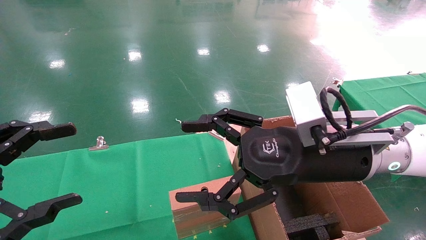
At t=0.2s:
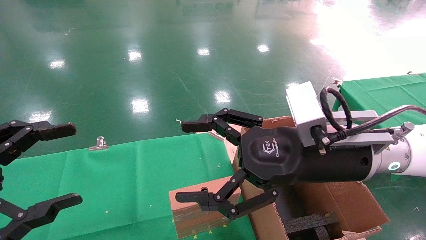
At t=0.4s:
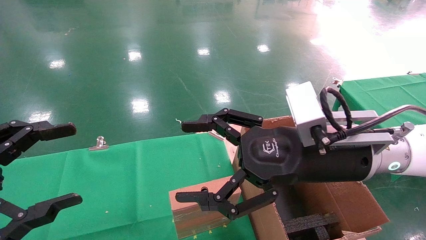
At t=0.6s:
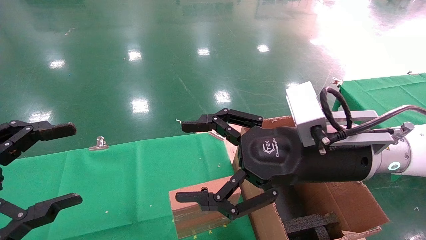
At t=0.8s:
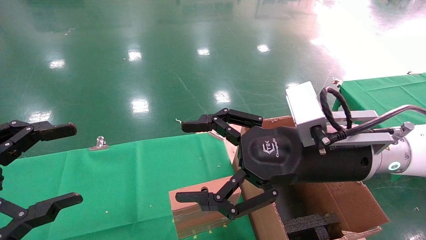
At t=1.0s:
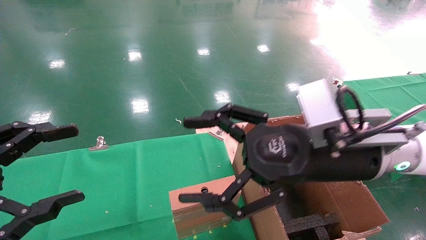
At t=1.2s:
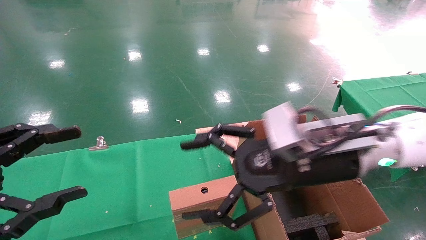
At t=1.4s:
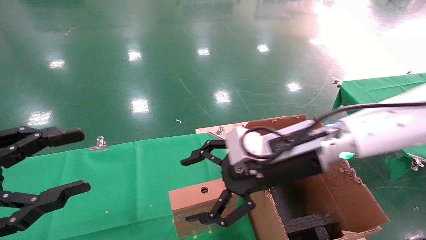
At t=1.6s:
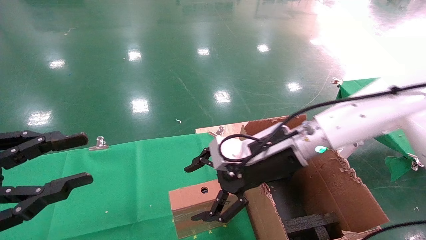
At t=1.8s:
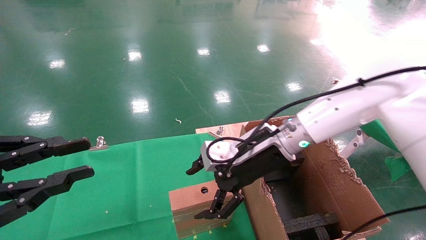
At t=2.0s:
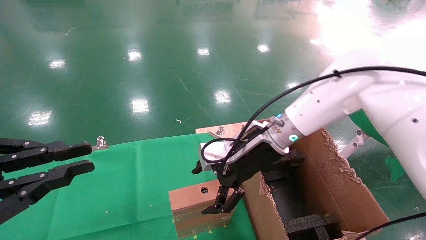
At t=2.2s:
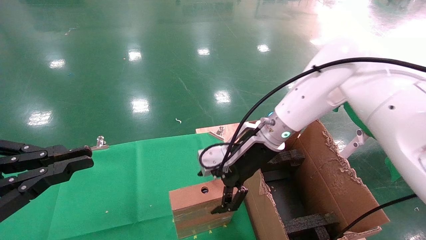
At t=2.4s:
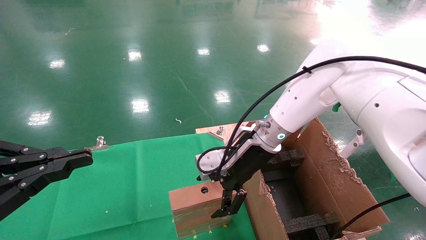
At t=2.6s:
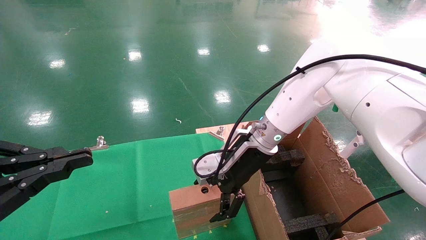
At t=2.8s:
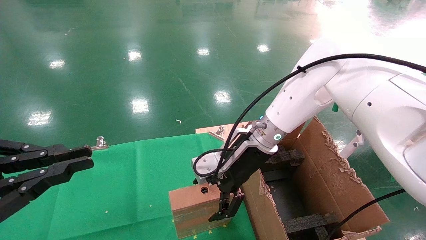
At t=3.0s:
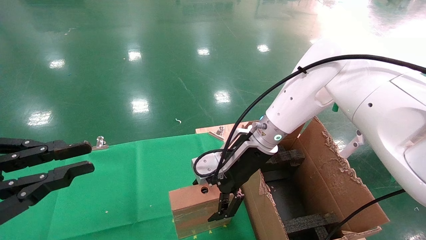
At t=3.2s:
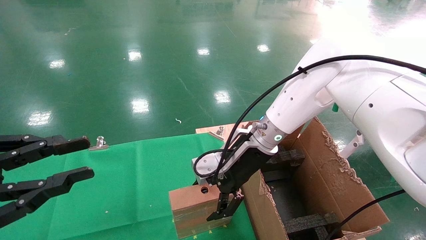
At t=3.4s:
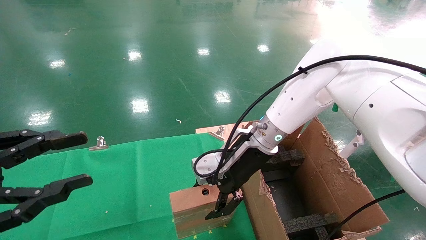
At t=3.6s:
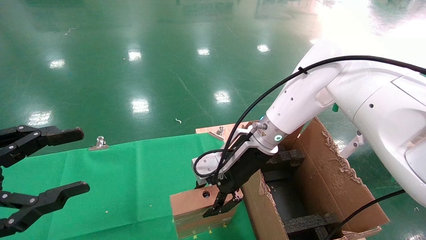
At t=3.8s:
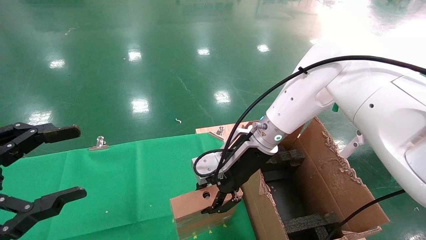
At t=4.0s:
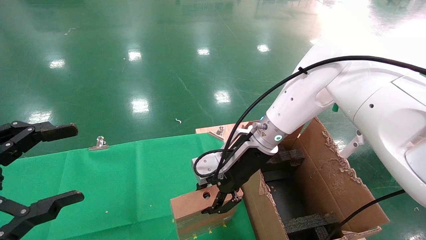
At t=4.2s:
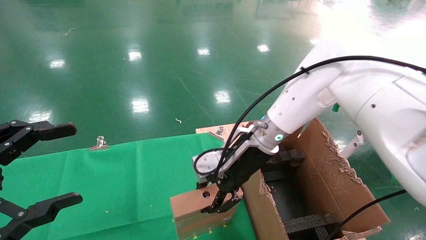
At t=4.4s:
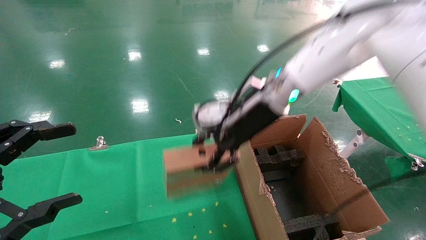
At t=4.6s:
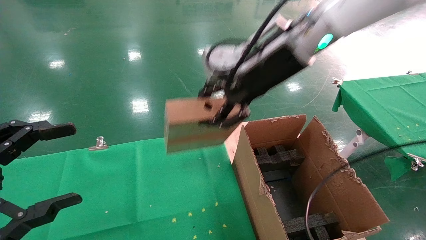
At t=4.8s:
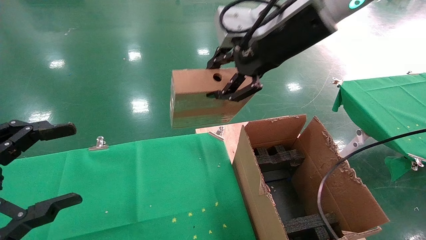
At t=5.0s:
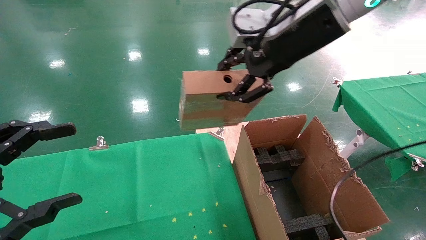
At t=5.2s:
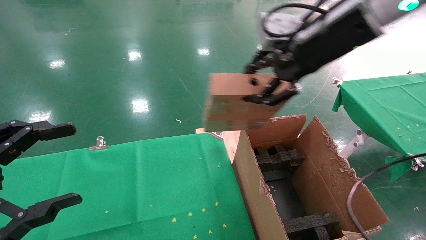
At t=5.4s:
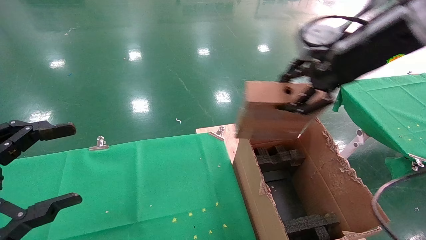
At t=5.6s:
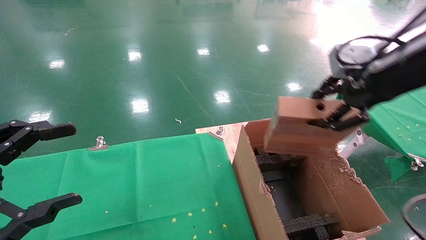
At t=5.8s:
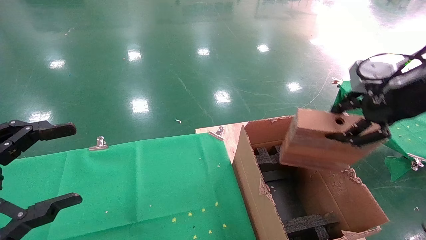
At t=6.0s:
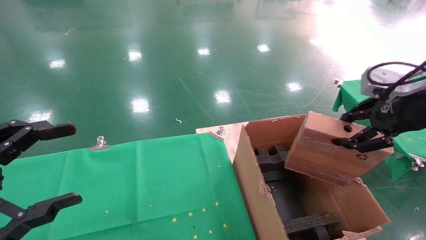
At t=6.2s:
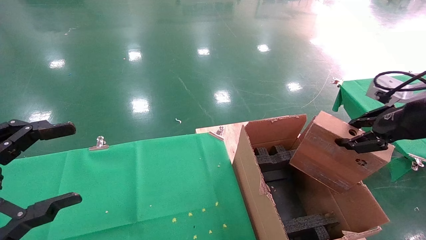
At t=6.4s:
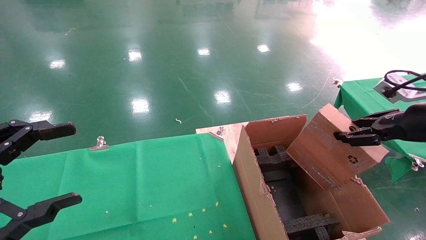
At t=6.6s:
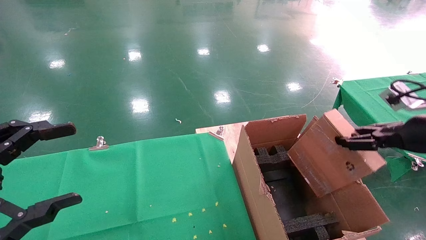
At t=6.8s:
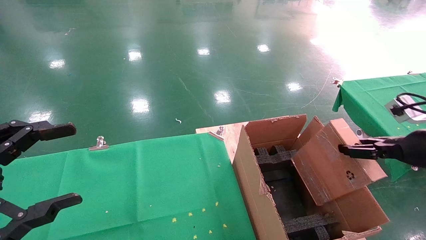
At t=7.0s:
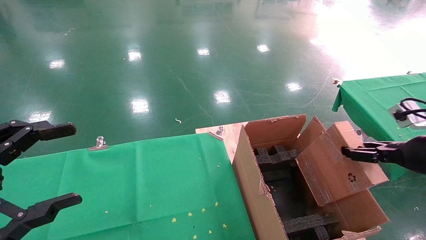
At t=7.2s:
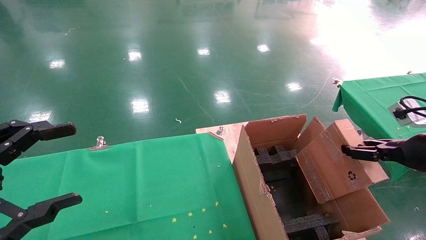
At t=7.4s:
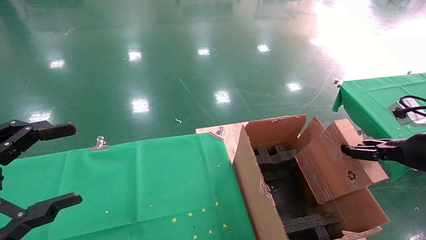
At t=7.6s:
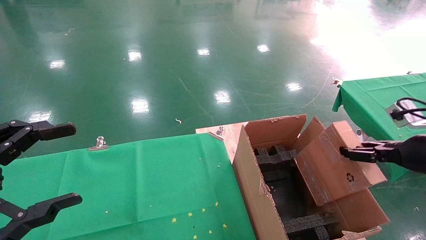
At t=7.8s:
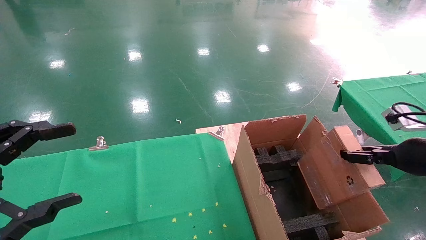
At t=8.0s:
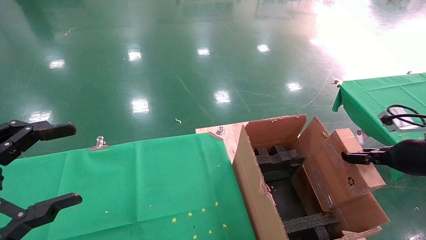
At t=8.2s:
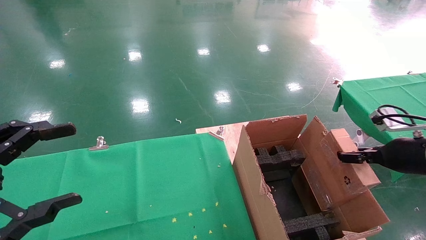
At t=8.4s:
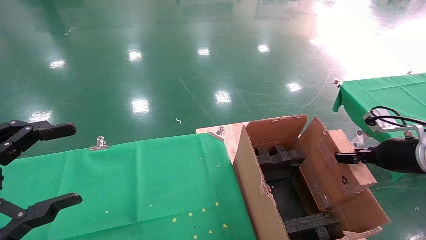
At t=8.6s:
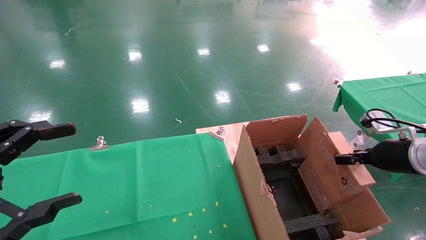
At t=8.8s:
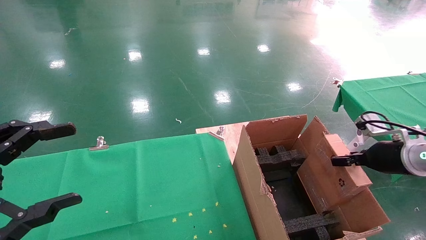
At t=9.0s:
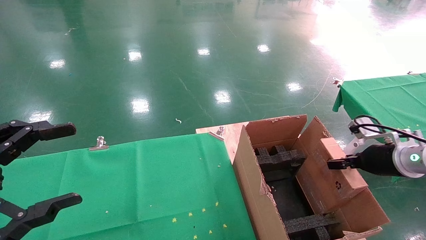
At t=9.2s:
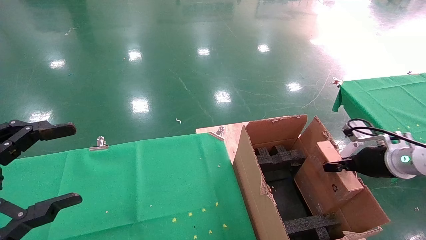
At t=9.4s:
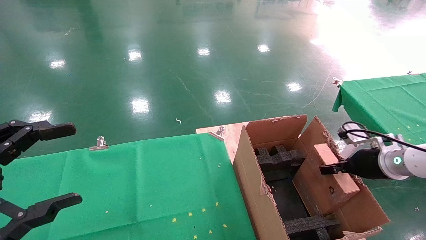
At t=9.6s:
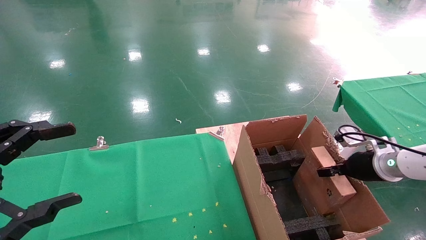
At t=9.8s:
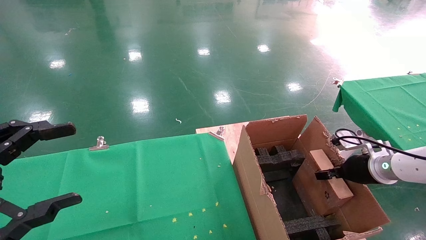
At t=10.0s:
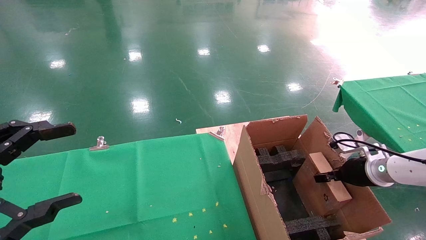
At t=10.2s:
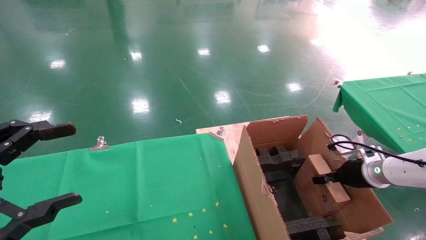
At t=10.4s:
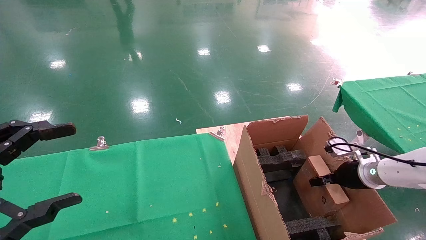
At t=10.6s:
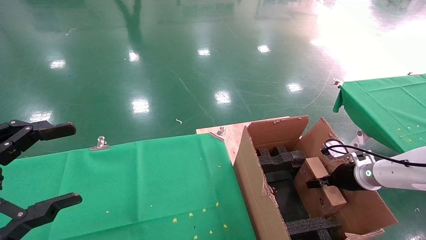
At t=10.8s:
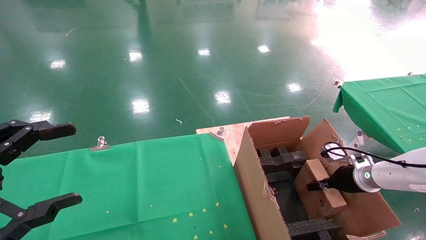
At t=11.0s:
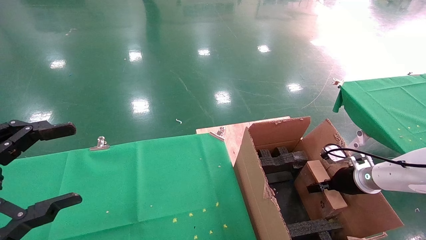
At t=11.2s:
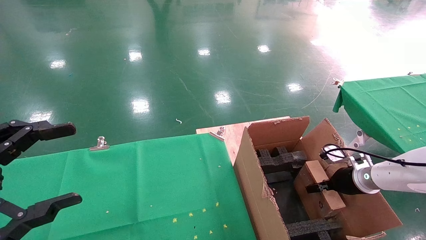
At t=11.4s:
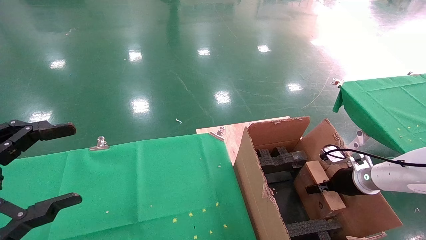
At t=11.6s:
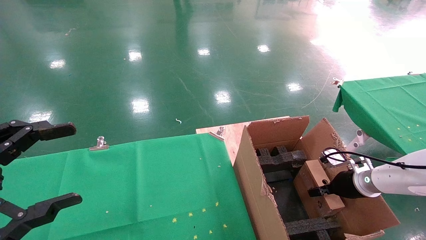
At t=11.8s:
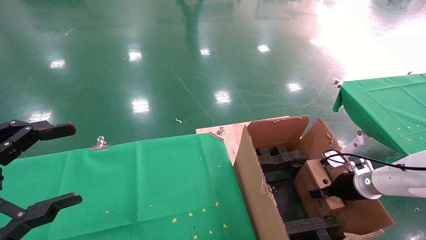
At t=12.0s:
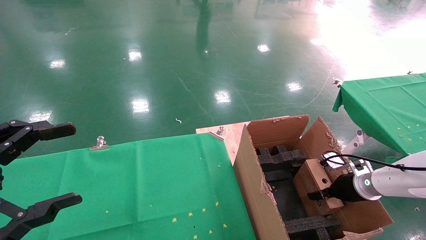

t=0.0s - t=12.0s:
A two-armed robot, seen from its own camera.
Task of the whole recording: using a robotic arm to pick up a cardboard box and palace it the carton.
Step, t=1.2s - t=3.8s: Pick up the mouse and the power cord paper box.
t=0.0s - t=1.6s: The right gripper moves forward, approximately 10 cm. Meanwhile the left gripper closes up.
t=1.6s - t=3.0s: The right gripper moves forward, some 5 cm. Meanwhile the left gripper closes its fingers.
t=3.0s - t=4.4s: The left gripper opens up; the right gripper heads upward, covering roughly 10 cm, and closes up.
t=4.4s - t=6.0s: The right gripper is displaced to the right and backward by approximately 30 cm.
t=6.0s - t=7.6s: The right gripper travels downward and to the right by approximately 15 cm.
t=7.6s - t=9.0s: The right gripper shifts roughly 10 cm forward and downward.
t=9.0s - t=10.4s: The right gripper shifts about 10 cm downward and forward.
t=10.4s - t=12.0s: There are only small adjustments of the grippers.

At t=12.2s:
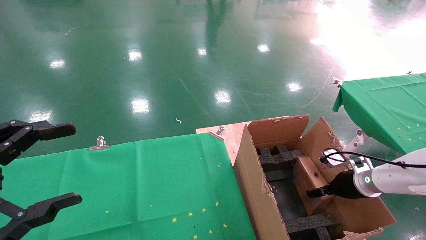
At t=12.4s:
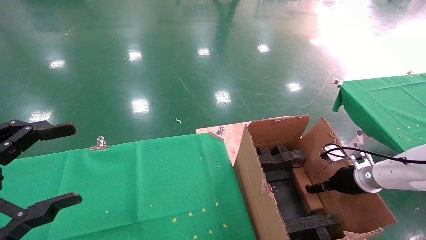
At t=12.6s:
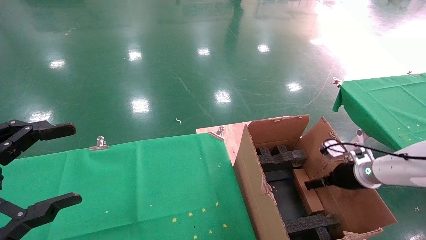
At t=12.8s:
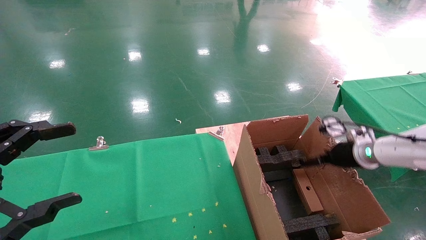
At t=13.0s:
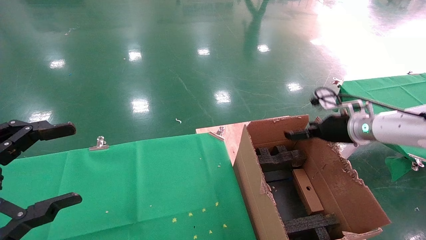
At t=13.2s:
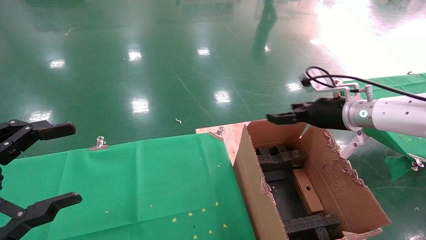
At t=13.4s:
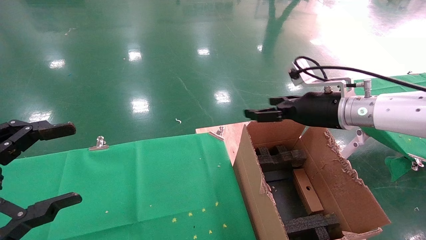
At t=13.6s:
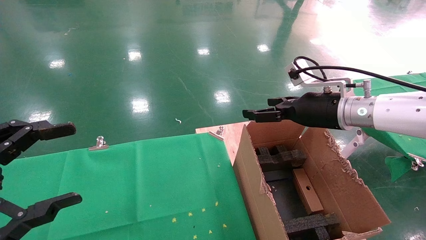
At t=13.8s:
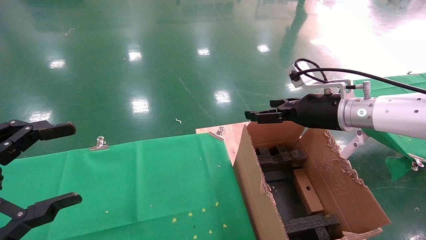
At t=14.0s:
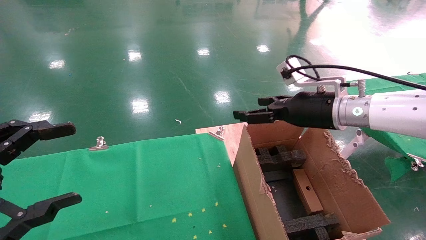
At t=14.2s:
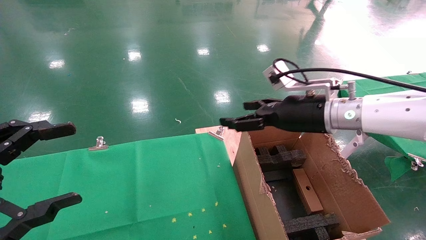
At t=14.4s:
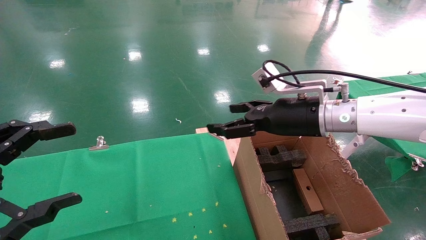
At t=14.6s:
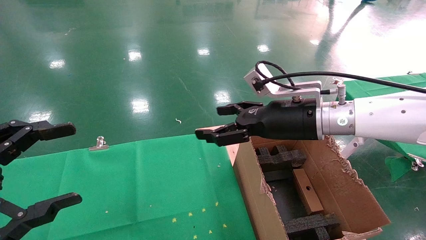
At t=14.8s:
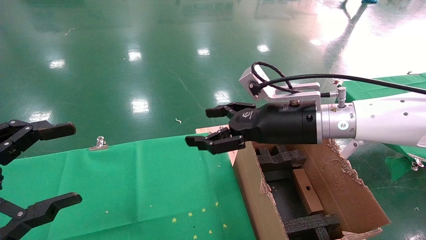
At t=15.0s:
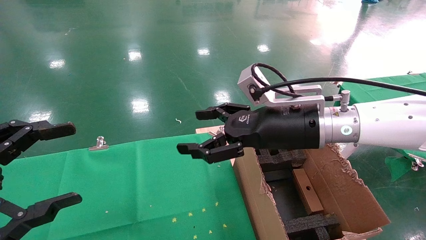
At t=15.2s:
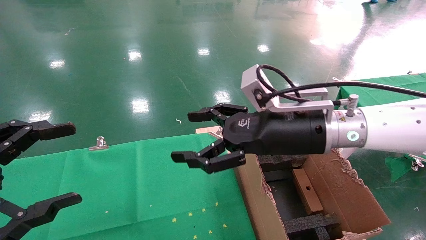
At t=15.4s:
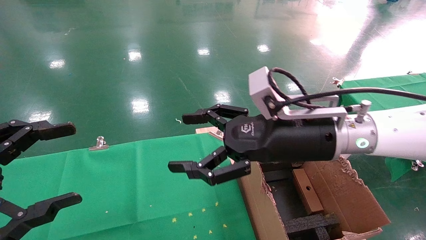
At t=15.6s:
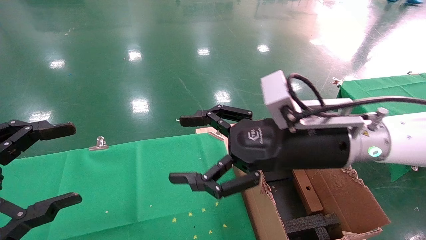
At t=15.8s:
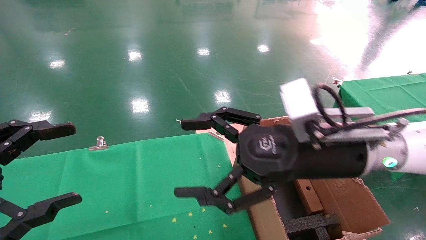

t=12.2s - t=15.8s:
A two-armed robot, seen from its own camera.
Task of the whole recording: using a robotic arm to pick up a cardboard box and palace it the carton.
t=12.2s - t=14.0s: The right gripper travels upward and to the left by about 25 cm, and opens up.
t=14.0s - t=15.8s: The right gripper shifts approximately 15 cm backward and to the left.
